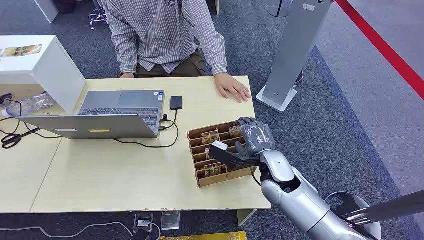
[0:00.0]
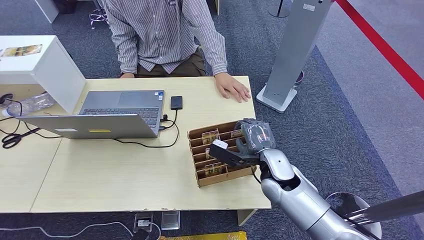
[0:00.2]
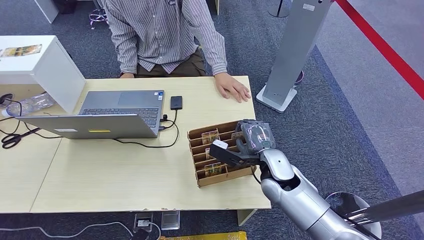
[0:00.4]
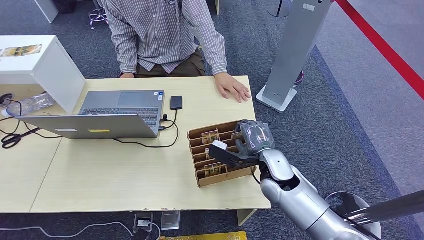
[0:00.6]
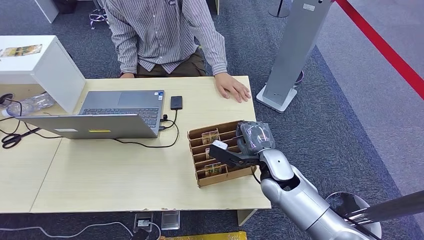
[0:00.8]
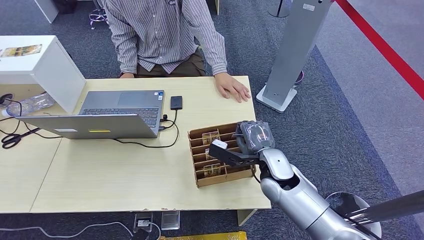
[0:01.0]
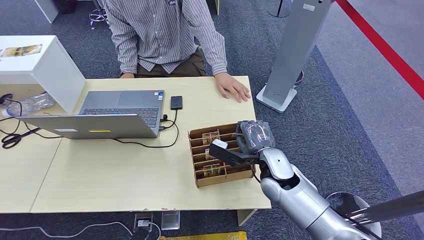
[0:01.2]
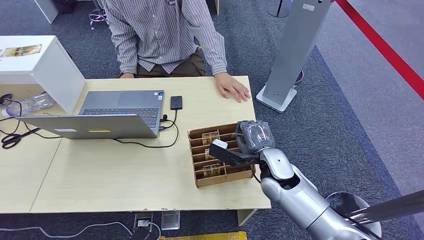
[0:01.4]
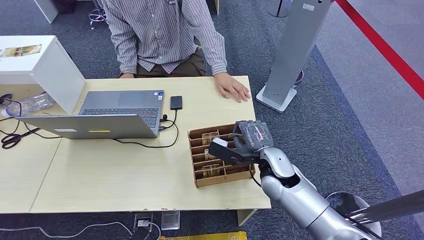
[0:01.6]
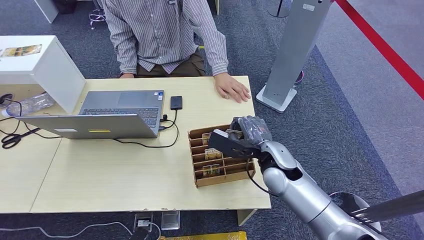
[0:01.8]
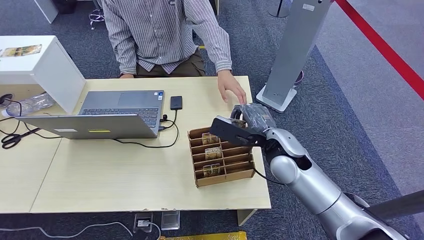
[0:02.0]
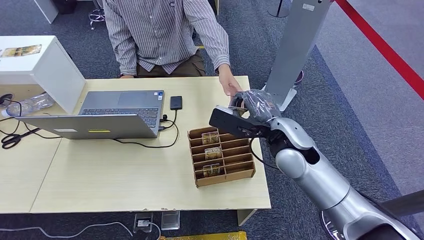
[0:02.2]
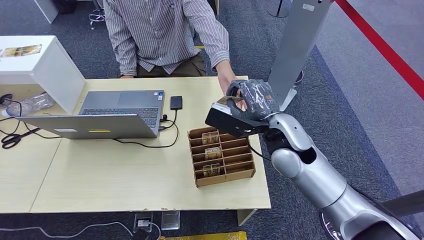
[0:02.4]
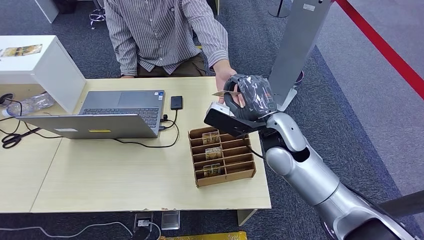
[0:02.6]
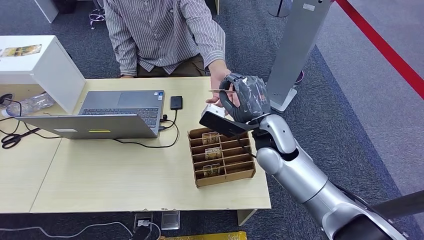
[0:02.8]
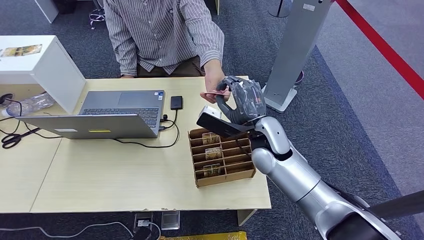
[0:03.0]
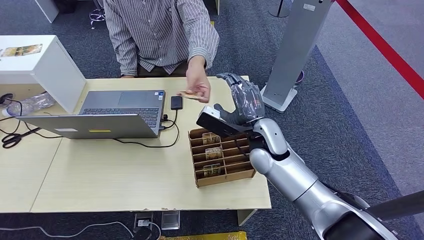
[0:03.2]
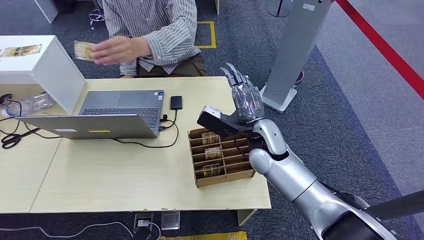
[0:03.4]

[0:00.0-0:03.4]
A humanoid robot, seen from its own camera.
Step, 0:00.0 to 0:01.8: Pick up the key card from the card box.
Step, 0:03.0 to 0:03.2: Hand the key card to the target.
0:01.6 to 0:03.4: The right hand travels upward by approximately 5 cm.
